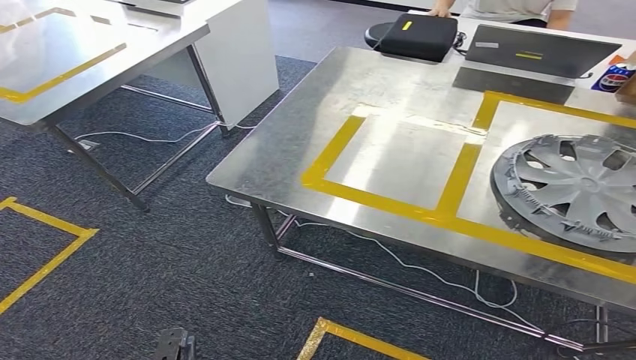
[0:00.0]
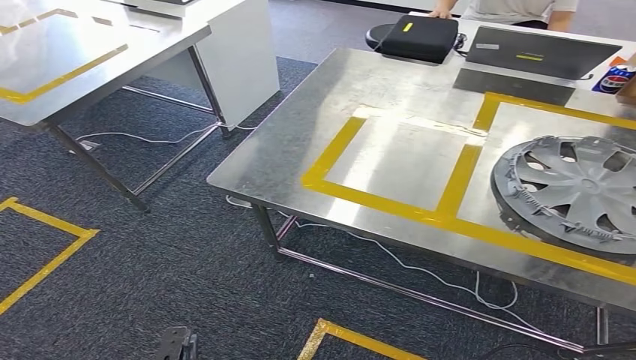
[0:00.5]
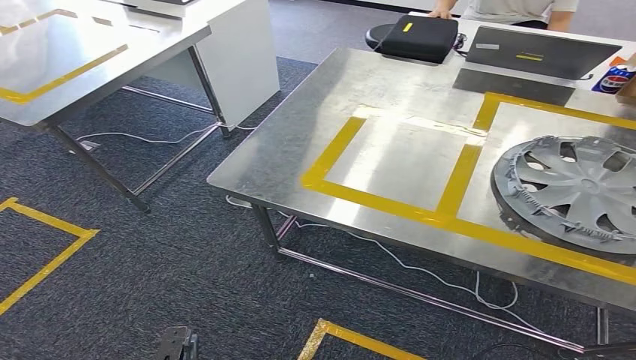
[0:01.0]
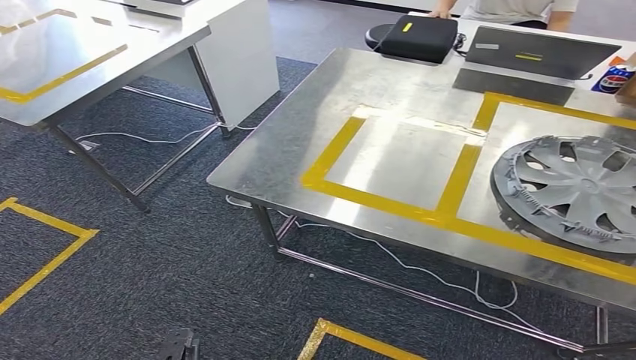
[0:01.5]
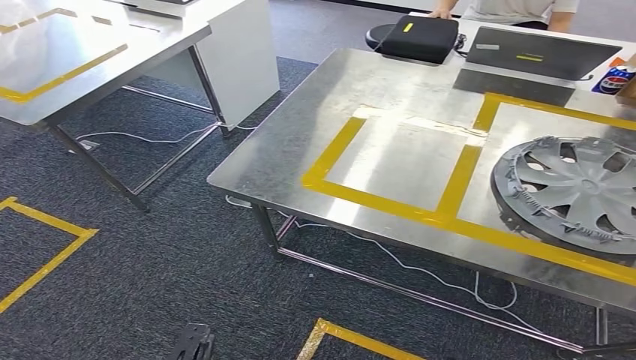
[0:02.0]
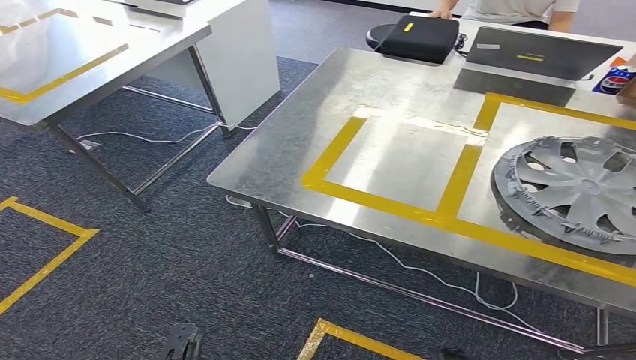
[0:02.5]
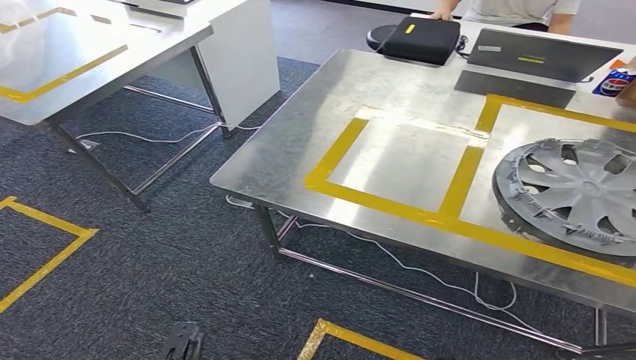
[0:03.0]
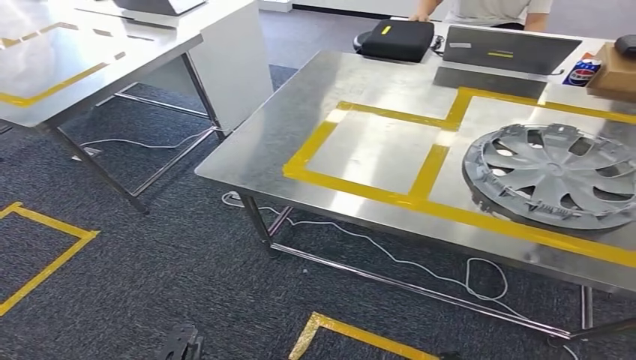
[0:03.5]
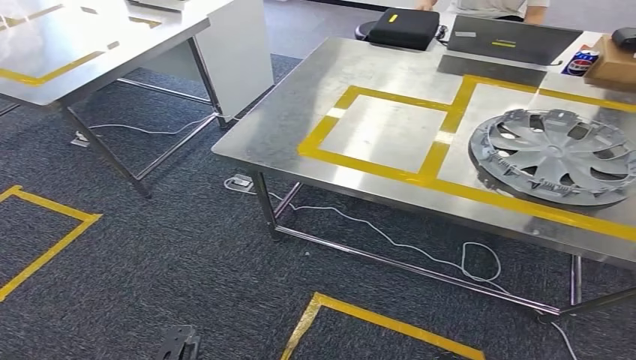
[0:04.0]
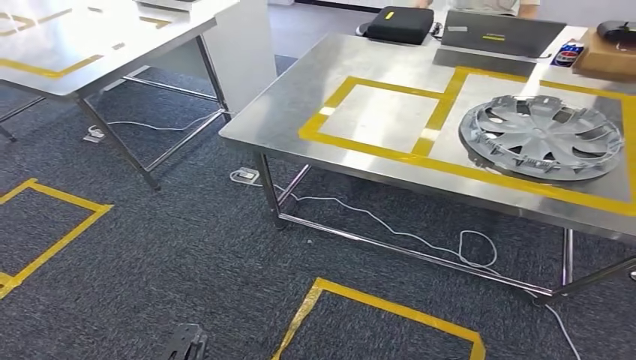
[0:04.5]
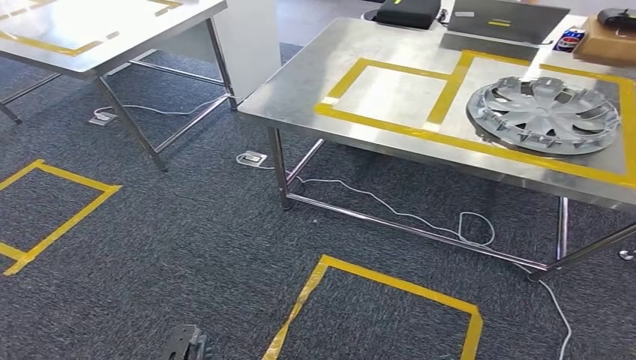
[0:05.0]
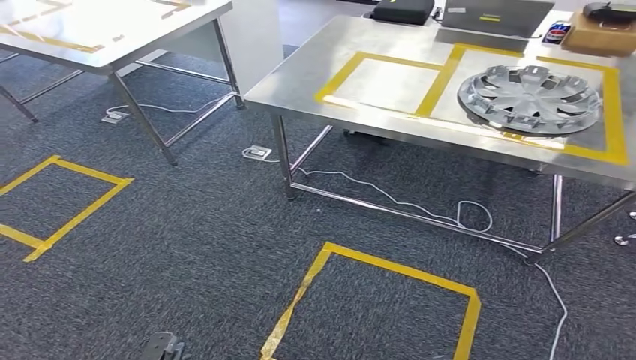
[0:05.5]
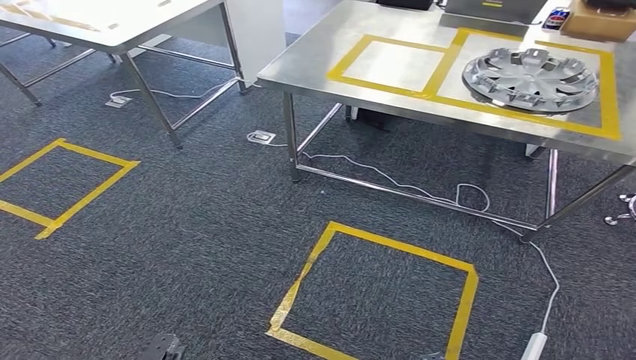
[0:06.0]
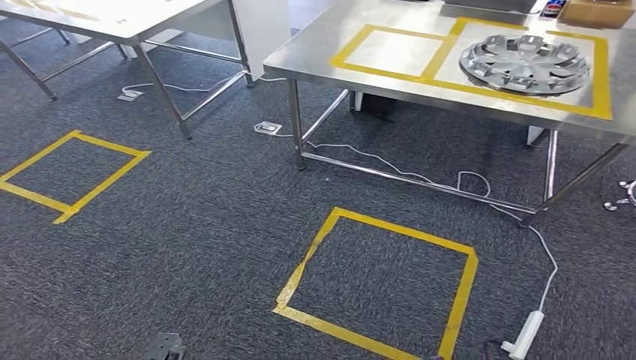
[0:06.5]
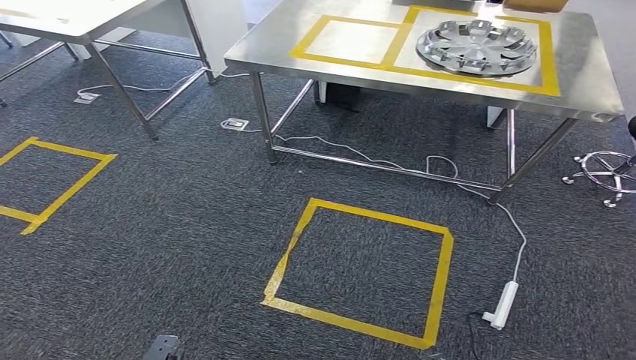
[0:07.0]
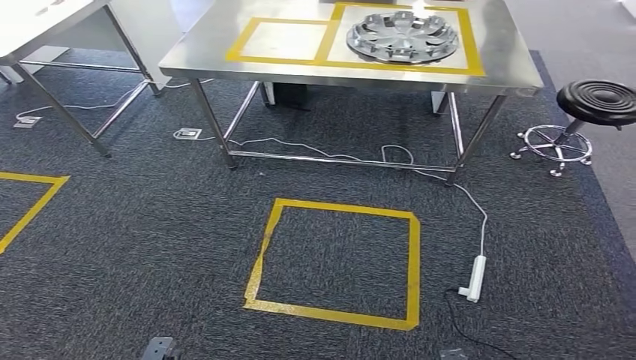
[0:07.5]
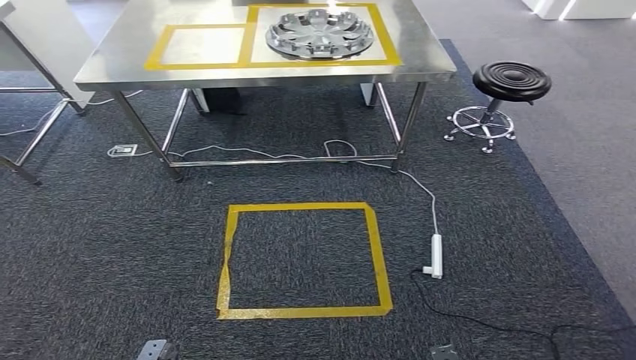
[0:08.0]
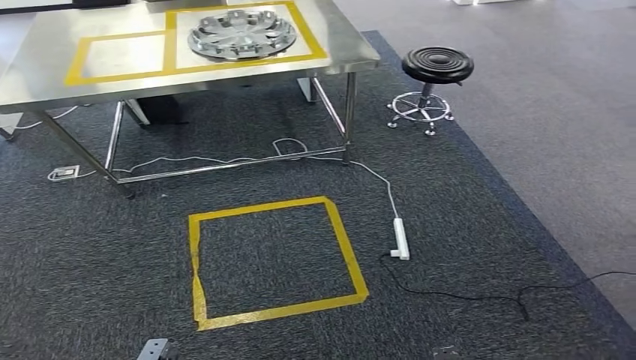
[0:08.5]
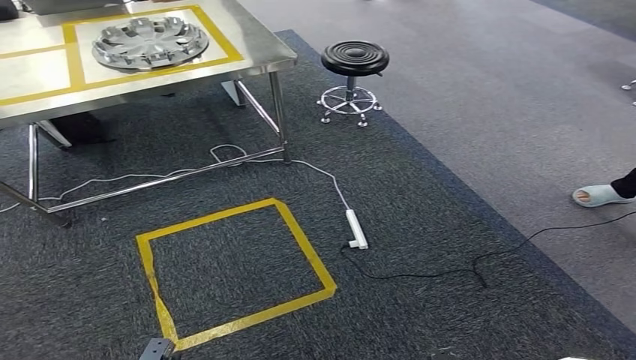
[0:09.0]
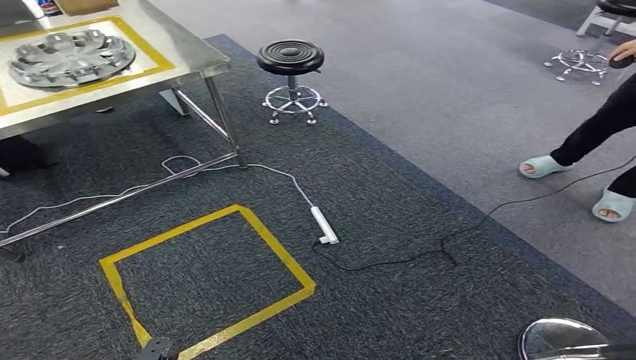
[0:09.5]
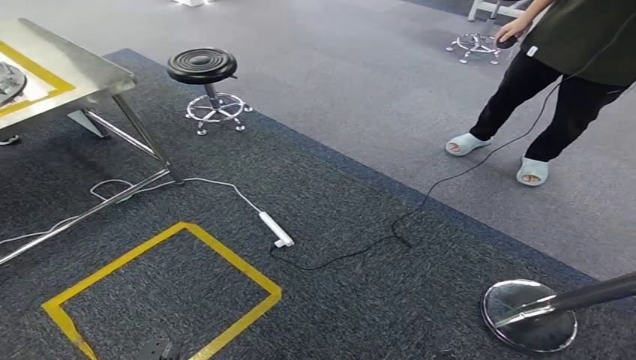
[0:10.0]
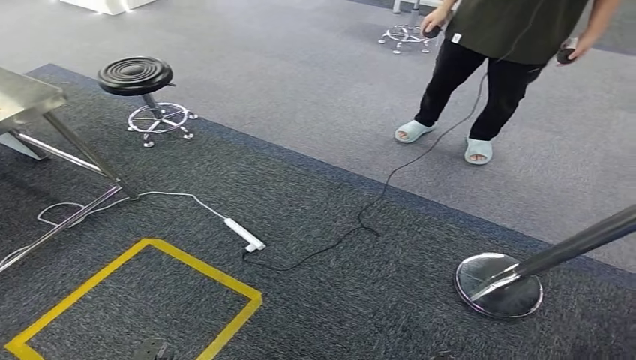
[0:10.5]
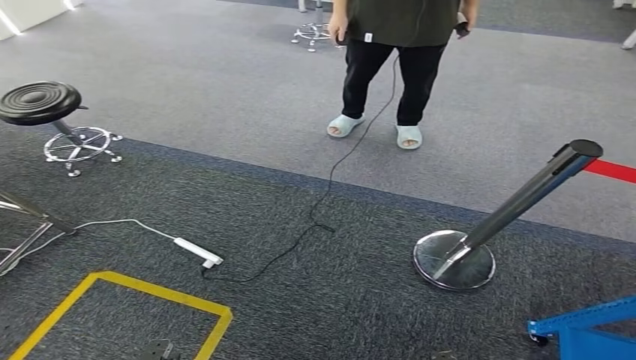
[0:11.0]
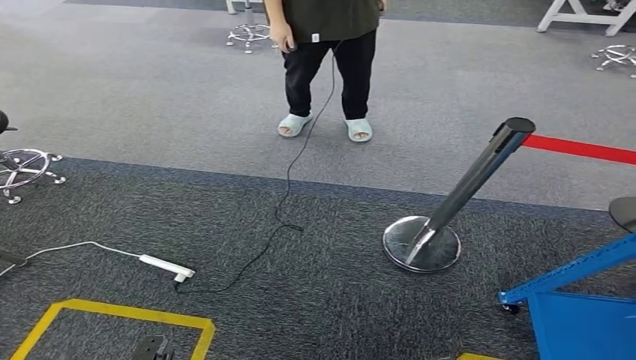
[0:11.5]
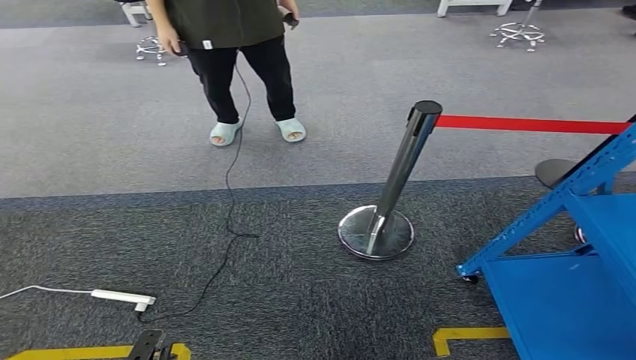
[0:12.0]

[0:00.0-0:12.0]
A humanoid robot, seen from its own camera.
0:00.0 to 0:02.0: The right hand shifts about 35 cm to the left and downward.

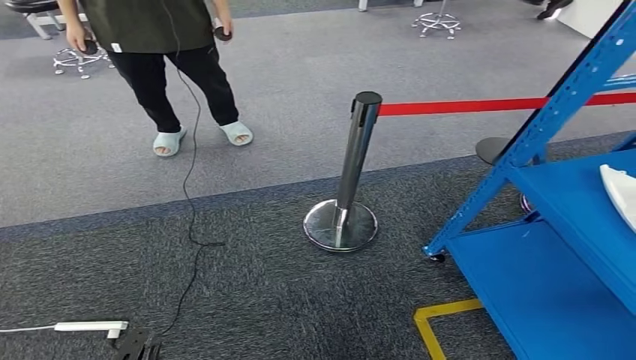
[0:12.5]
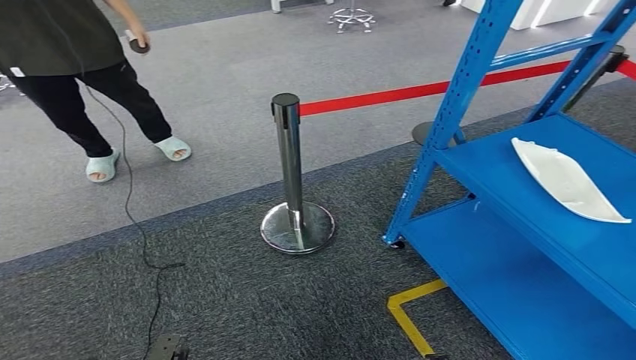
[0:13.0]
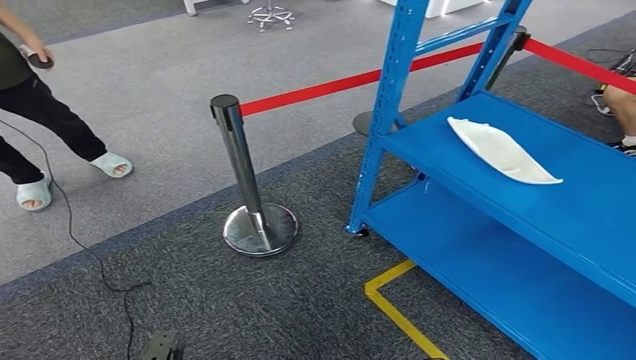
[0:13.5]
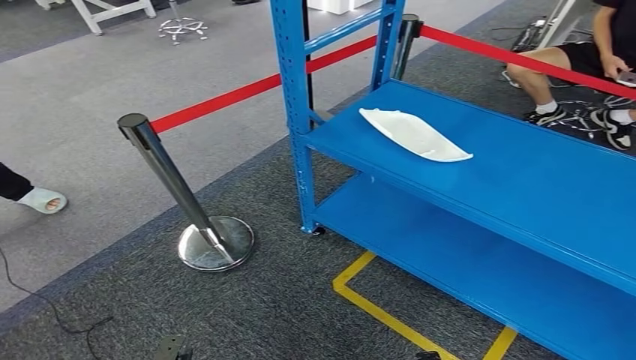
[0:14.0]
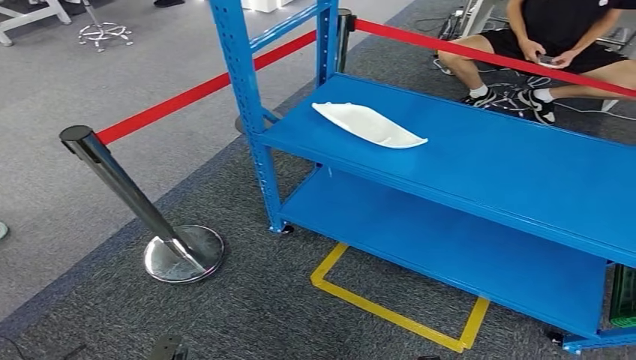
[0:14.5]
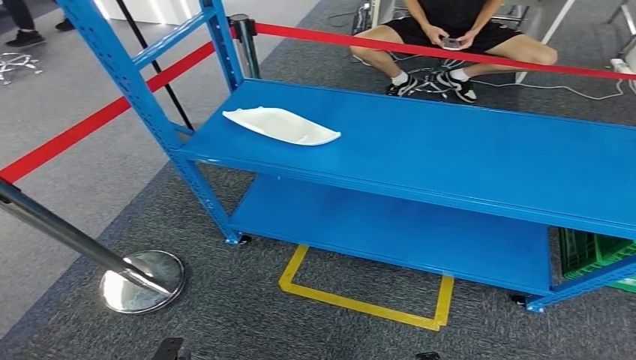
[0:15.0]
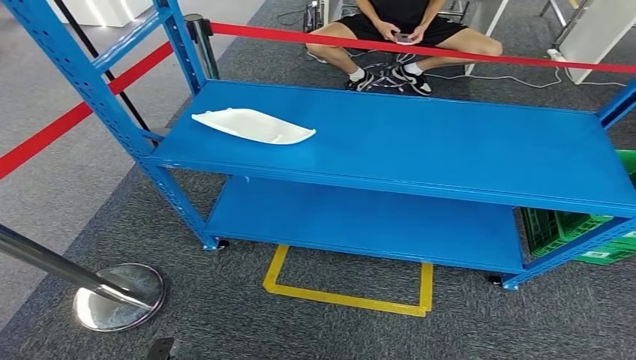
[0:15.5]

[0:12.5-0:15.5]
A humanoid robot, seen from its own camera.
Step, 0:12.5 to 0:15.5: Move to the initial position of the workbench.

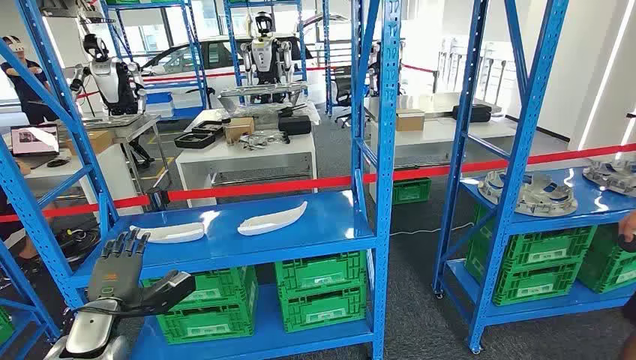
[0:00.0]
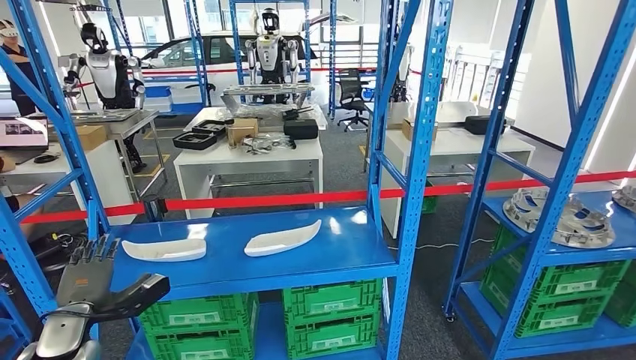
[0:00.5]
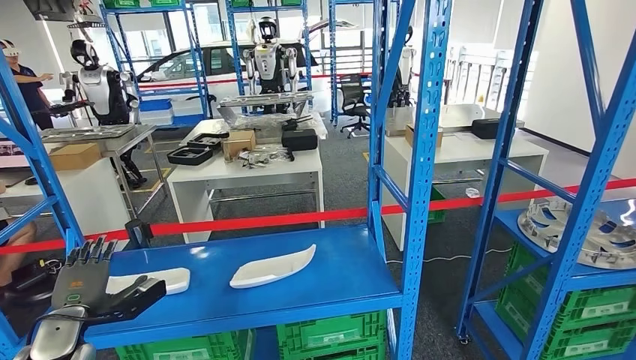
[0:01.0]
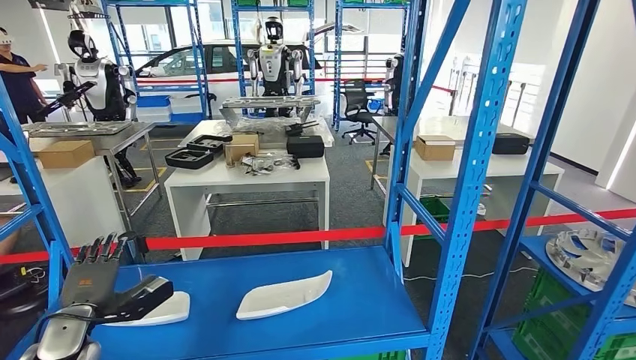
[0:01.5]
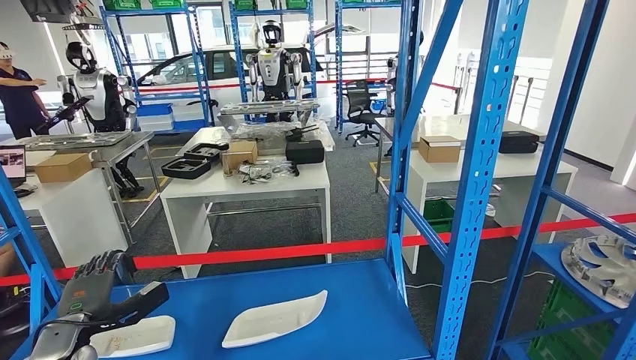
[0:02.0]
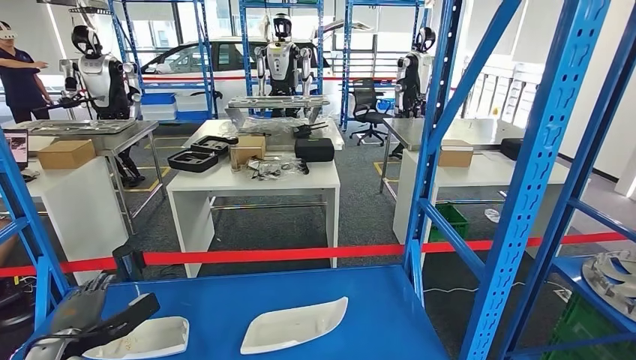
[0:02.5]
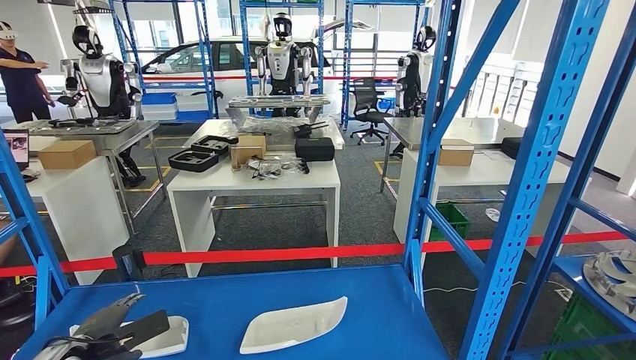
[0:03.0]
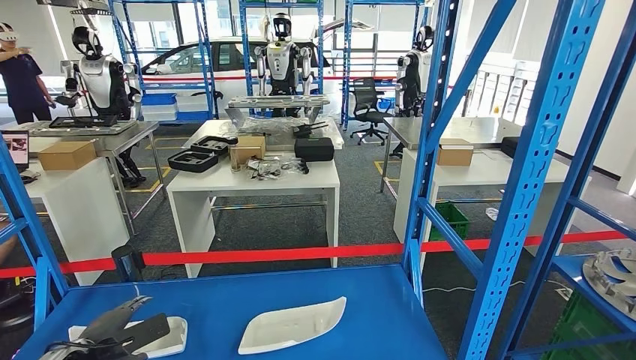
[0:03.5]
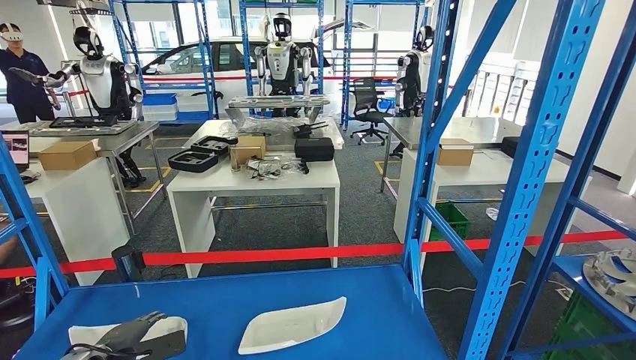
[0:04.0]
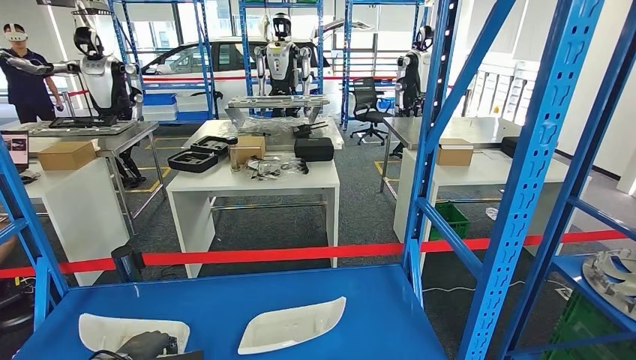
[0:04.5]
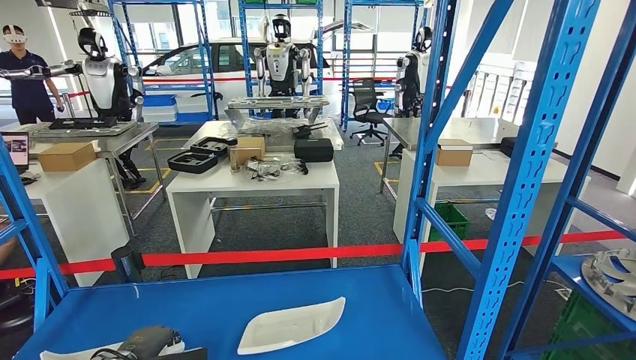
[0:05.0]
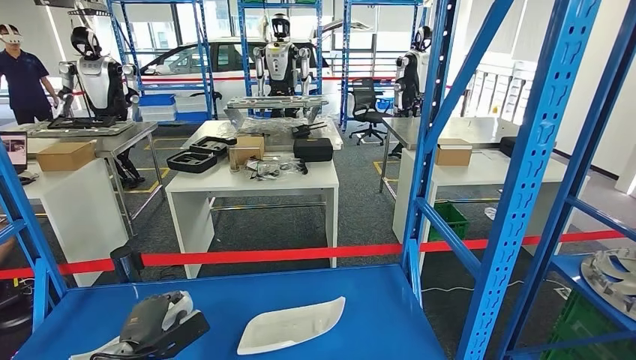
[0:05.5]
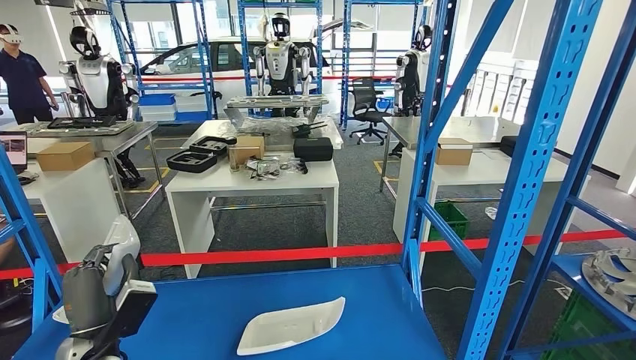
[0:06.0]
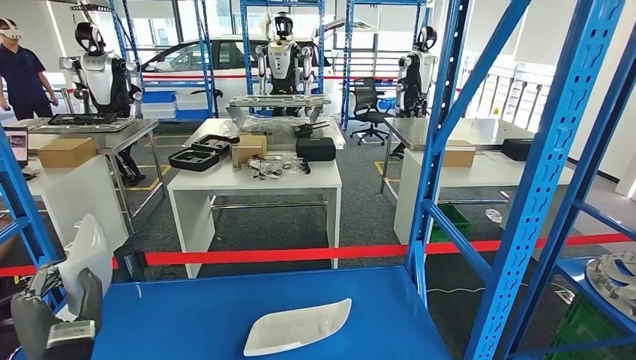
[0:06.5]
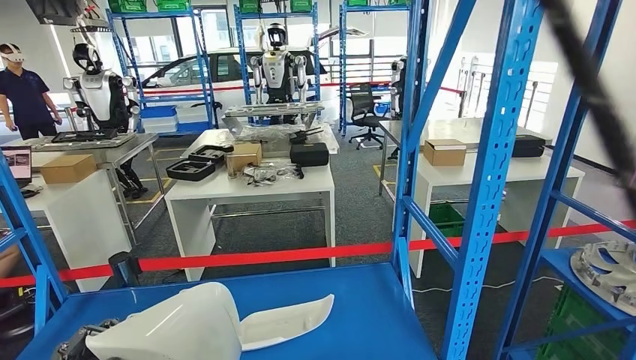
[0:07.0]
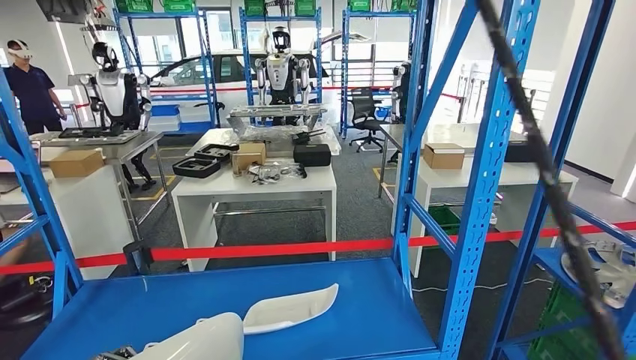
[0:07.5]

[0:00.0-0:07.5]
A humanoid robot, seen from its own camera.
Step, 0:00.0 to 0:07.0: Take small components from the rack.
0:04.0 to 0:05.5: The left hand goes some 5 cm to the right.
